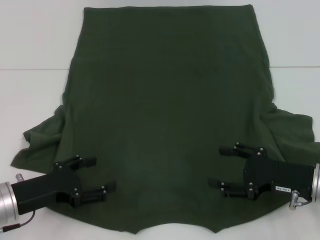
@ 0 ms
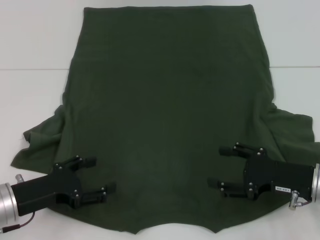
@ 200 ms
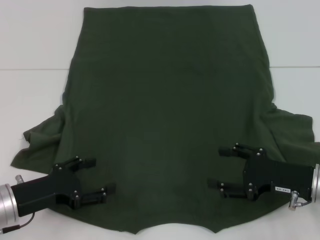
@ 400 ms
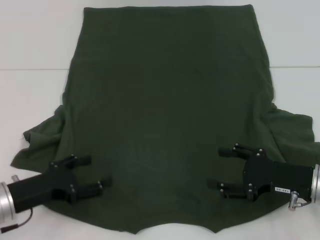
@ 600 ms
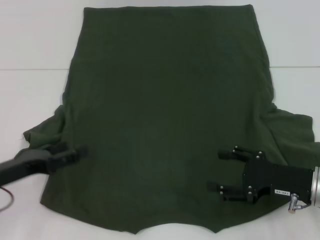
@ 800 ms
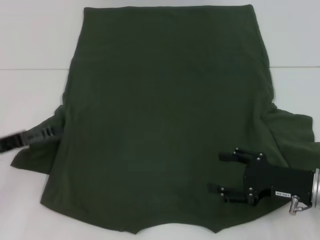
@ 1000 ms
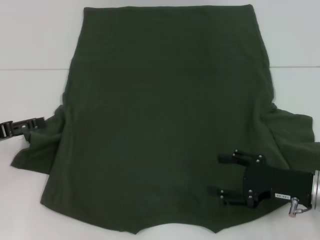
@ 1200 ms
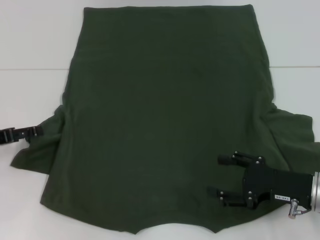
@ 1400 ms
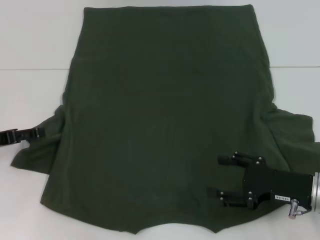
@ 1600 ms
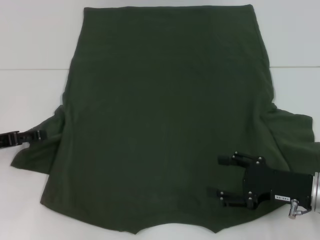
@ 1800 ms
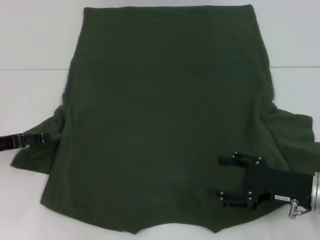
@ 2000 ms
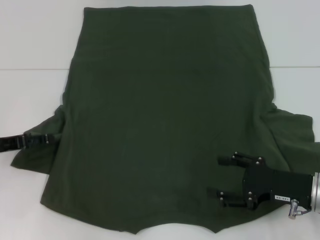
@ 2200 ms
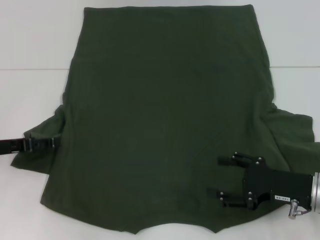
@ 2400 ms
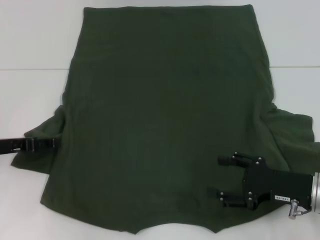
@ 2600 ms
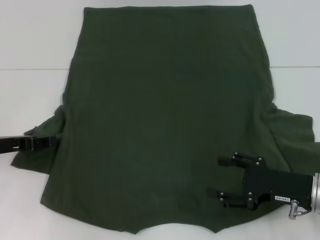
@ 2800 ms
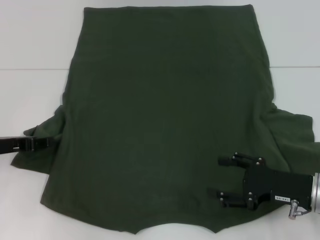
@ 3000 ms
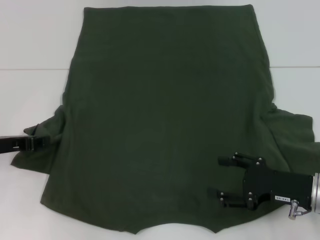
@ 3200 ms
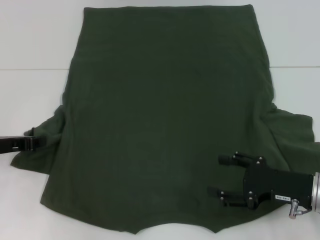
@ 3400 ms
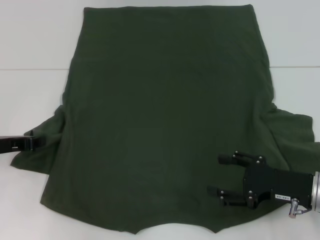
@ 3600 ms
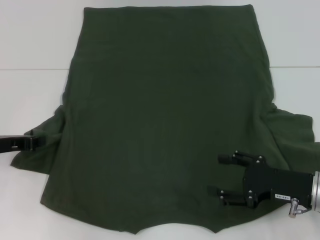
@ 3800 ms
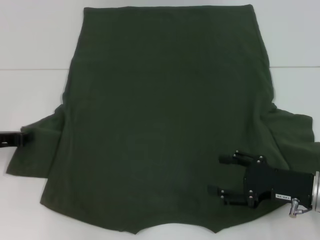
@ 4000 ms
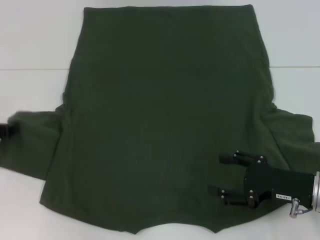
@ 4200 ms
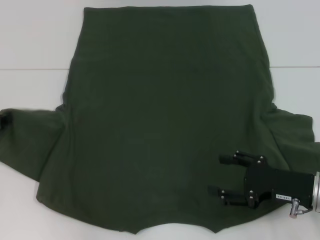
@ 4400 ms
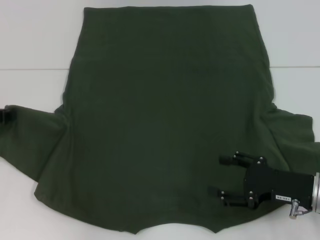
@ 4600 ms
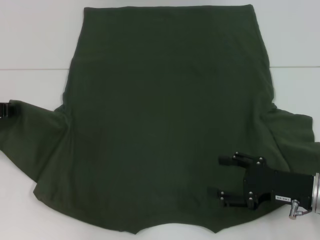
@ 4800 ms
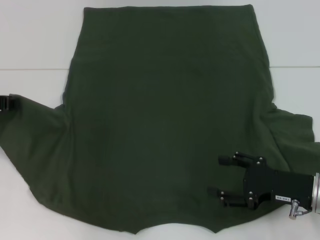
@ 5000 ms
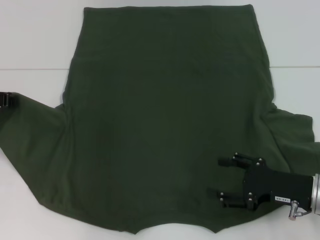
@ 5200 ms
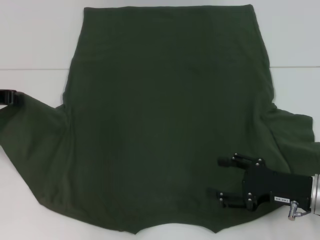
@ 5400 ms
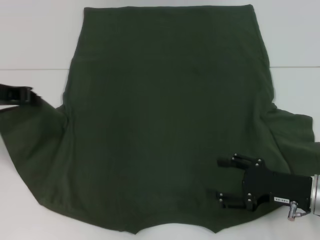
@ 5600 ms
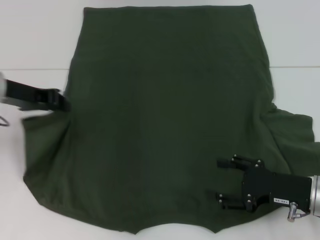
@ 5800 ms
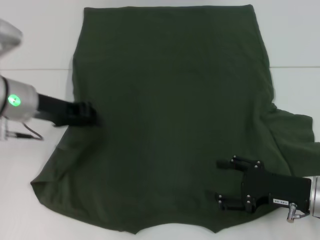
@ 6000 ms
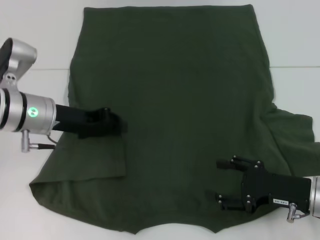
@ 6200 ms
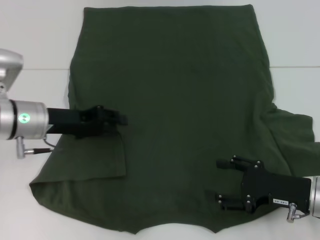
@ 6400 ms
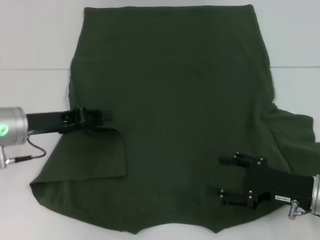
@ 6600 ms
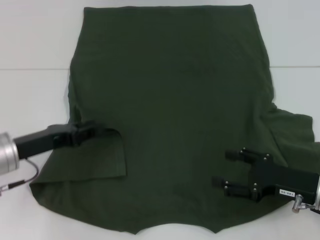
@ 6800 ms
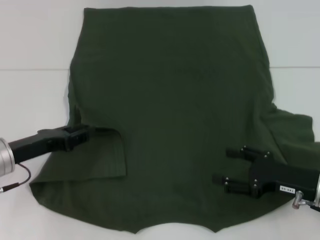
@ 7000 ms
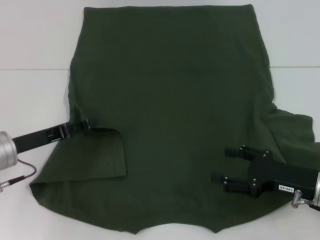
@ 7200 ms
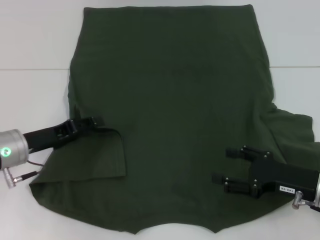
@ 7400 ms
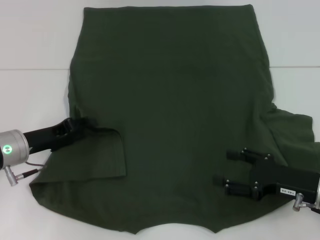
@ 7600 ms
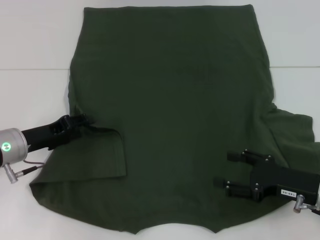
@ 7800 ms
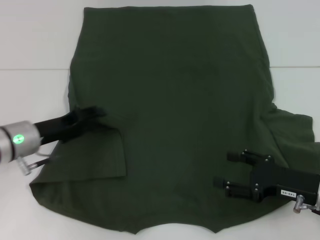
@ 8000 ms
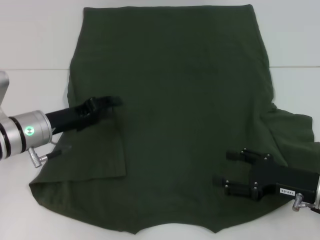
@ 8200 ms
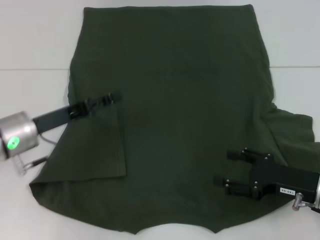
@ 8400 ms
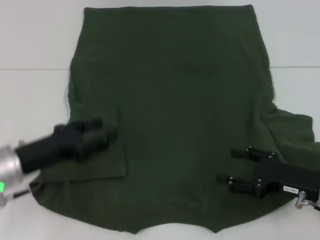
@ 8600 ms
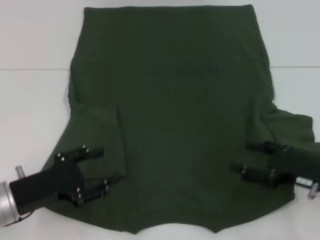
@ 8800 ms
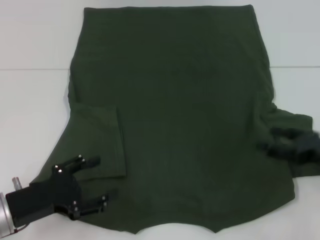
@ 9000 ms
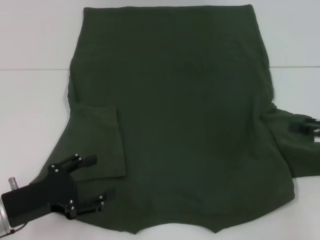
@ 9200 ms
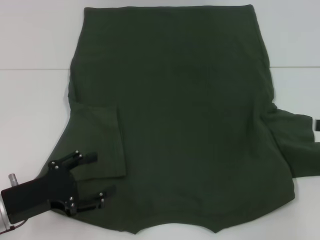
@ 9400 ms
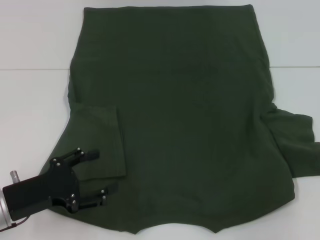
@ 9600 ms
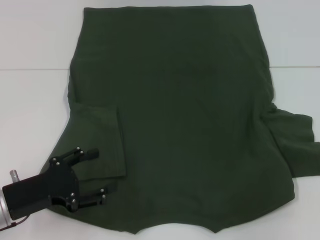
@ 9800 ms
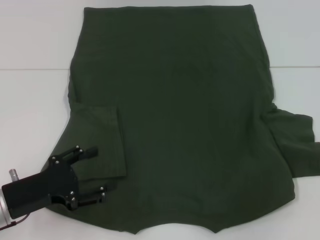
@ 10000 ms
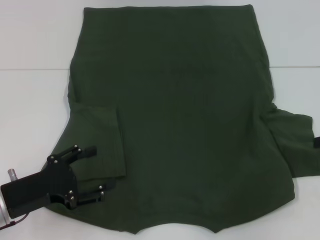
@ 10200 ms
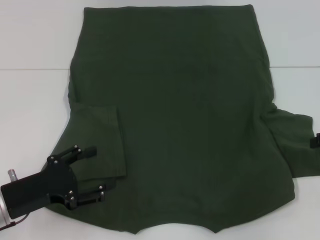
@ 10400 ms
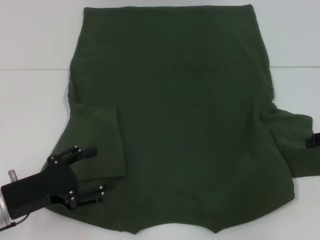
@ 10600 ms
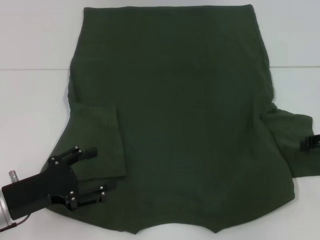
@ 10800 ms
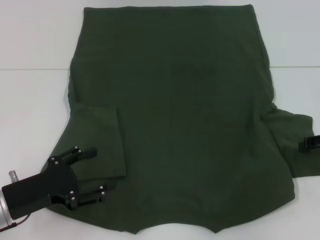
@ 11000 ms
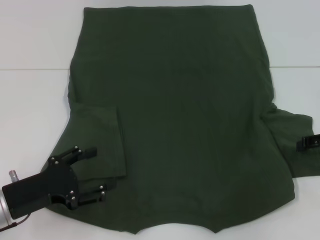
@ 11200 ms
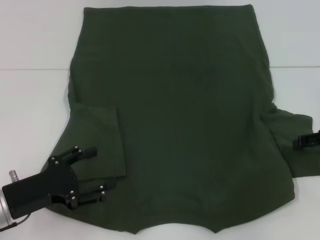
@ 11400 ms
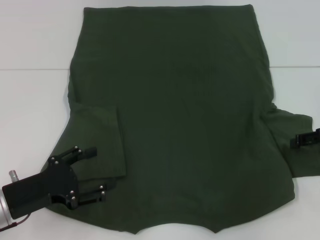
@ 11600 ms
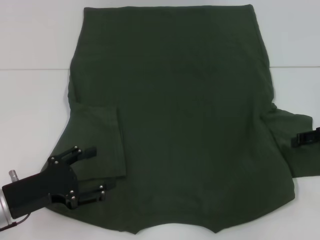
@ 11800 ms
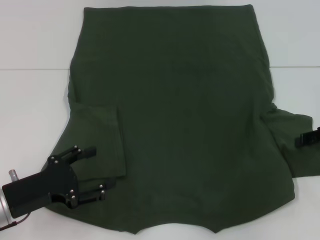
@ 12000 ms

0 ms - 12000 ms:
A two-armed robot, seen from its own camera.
Step, 0 ms - 8200 ms: Fold the bottom left sleeve with your left hand.
0 ms - 1600 ms: The left gripper shifts about 10 cm to the left and forward.
1600 ms - 3000 ms: There are only small adjustments of the grippers.
3000 ms - 4400 ms: The left gripper ends up approximately 5 cm from where it was, and closes up.
4400 ms - 6000 ms: The left gripper is displaced to the right by roughly 10 cm.
6000 ms - 7600 ms: The left gripper moves downward, about 10 cm, and opens up.
7600 ms - 9000 ms: The right gripper is displaced to the right by some 5 cm, while the left gripper heads backward, covering some 10 cm.
9000 ms - 10400 ms: The right gripper moves forward, upward and to the right, roughly 10 cm.

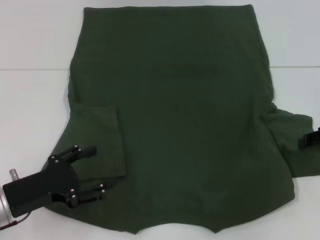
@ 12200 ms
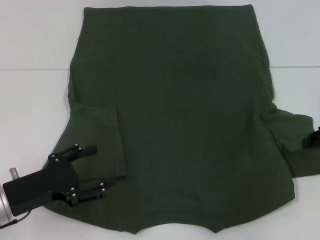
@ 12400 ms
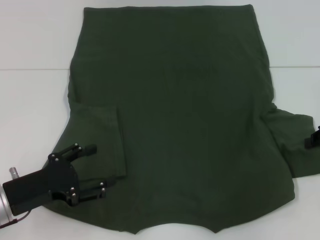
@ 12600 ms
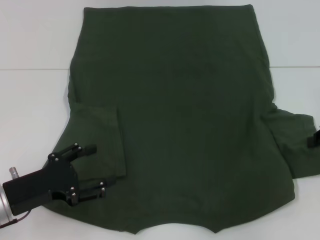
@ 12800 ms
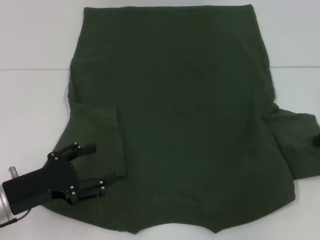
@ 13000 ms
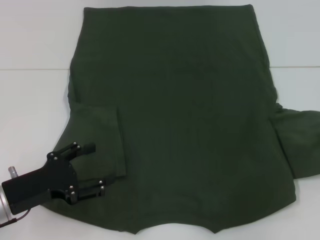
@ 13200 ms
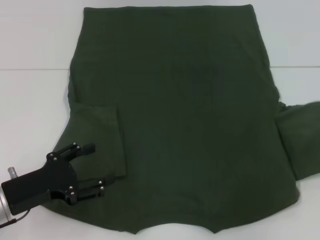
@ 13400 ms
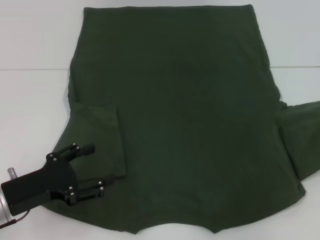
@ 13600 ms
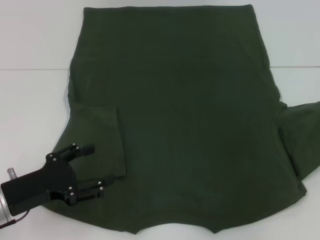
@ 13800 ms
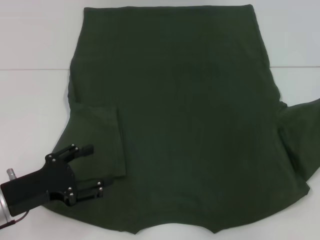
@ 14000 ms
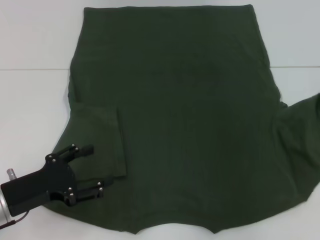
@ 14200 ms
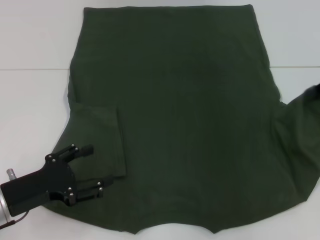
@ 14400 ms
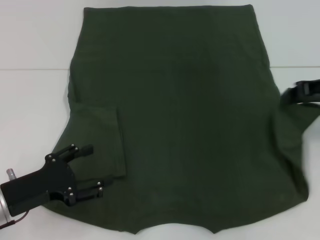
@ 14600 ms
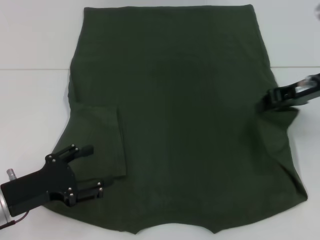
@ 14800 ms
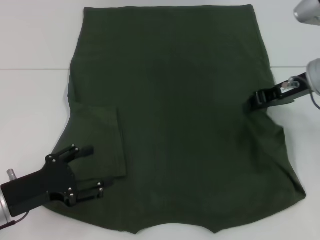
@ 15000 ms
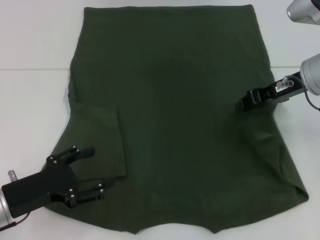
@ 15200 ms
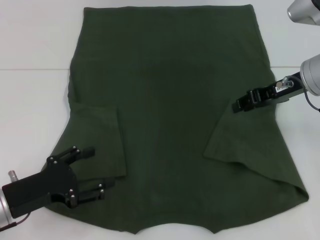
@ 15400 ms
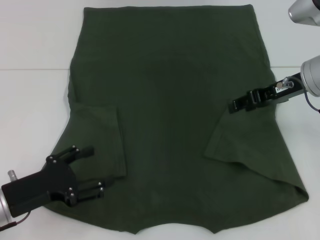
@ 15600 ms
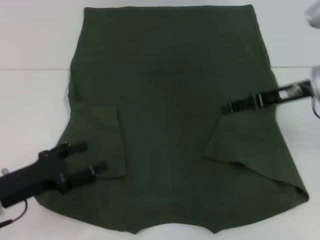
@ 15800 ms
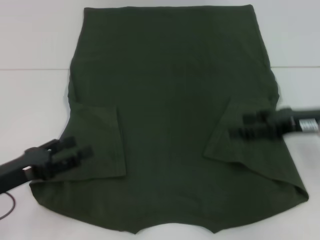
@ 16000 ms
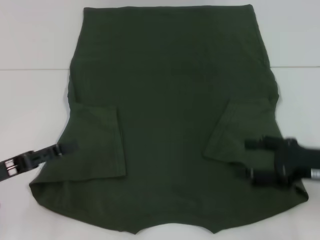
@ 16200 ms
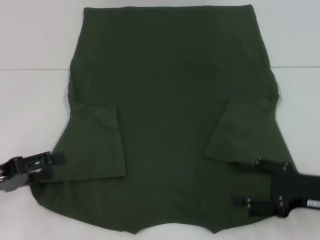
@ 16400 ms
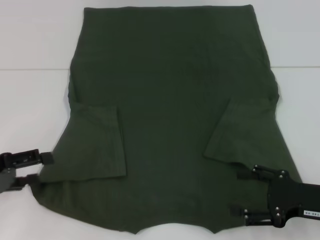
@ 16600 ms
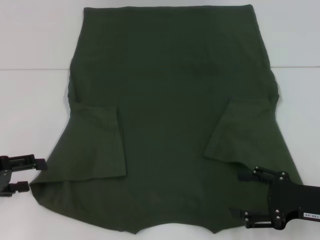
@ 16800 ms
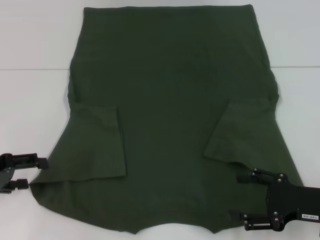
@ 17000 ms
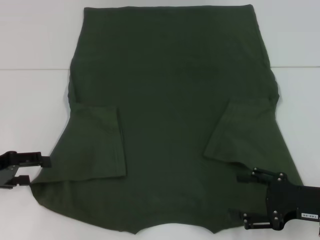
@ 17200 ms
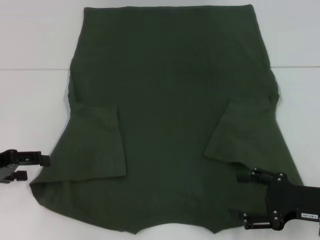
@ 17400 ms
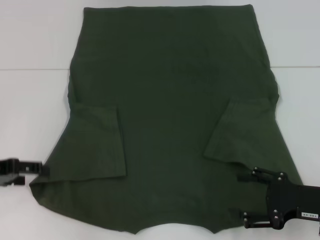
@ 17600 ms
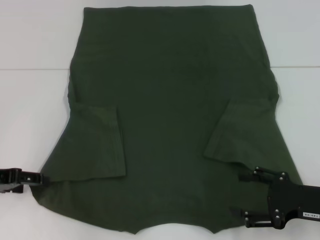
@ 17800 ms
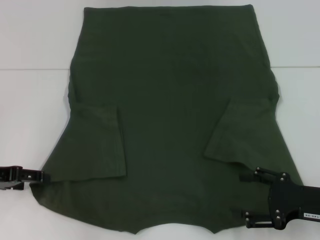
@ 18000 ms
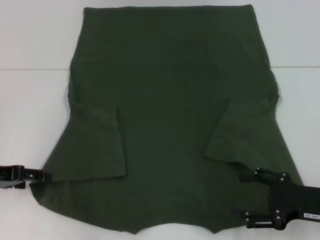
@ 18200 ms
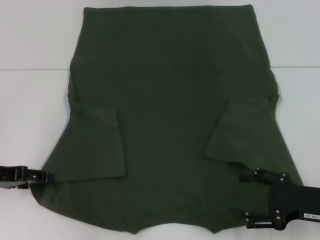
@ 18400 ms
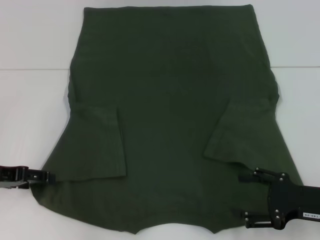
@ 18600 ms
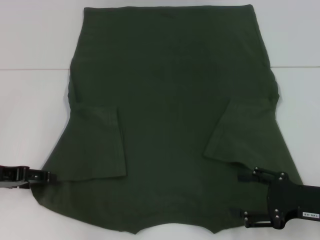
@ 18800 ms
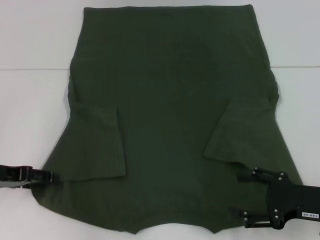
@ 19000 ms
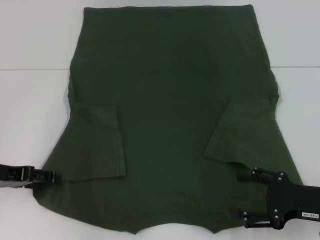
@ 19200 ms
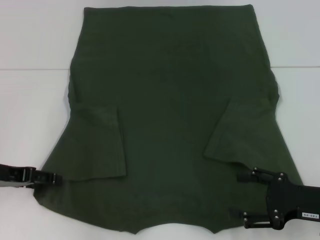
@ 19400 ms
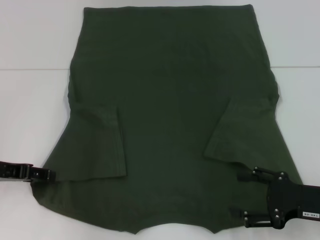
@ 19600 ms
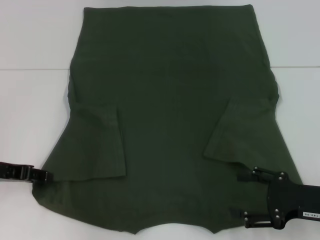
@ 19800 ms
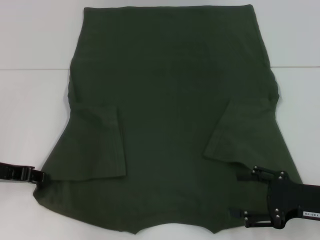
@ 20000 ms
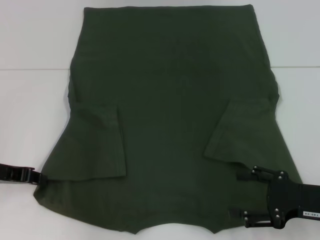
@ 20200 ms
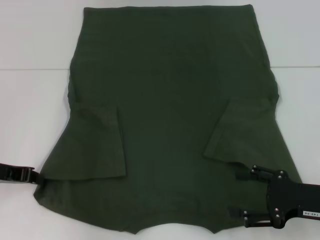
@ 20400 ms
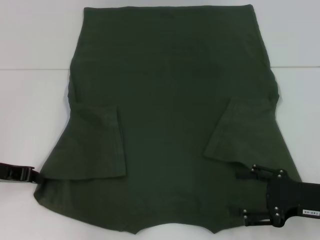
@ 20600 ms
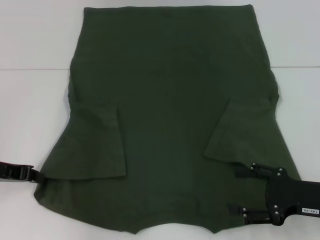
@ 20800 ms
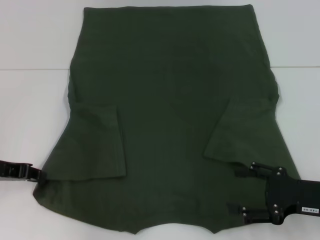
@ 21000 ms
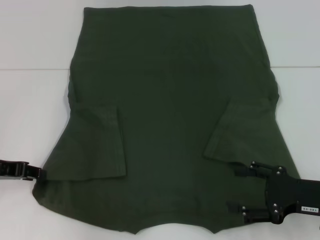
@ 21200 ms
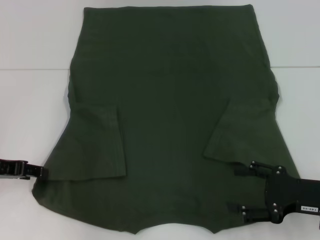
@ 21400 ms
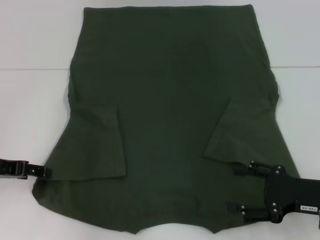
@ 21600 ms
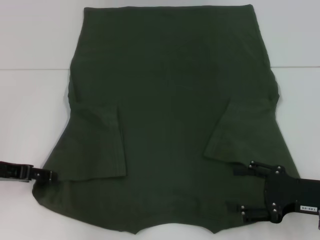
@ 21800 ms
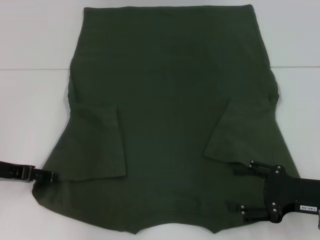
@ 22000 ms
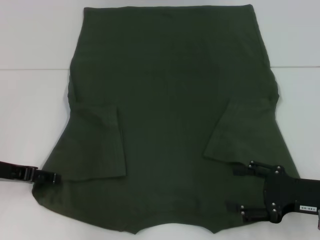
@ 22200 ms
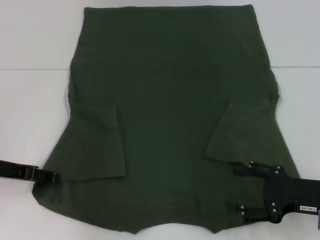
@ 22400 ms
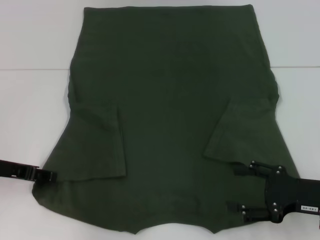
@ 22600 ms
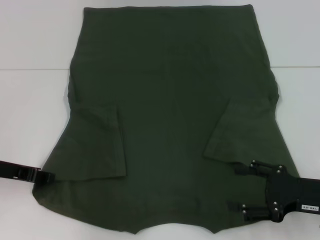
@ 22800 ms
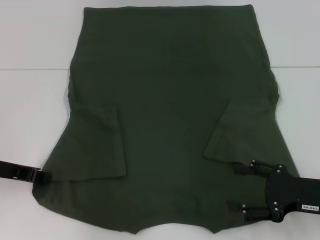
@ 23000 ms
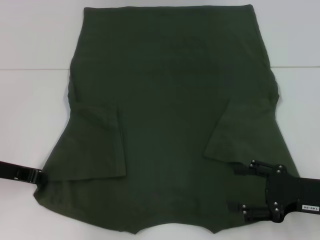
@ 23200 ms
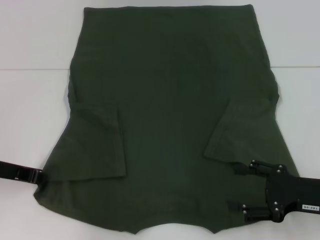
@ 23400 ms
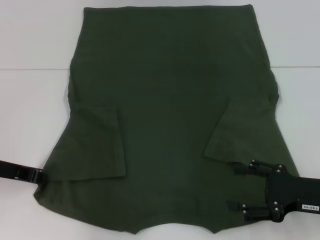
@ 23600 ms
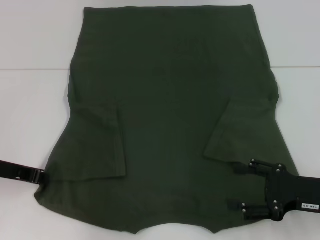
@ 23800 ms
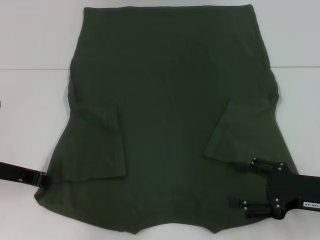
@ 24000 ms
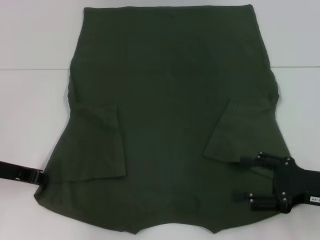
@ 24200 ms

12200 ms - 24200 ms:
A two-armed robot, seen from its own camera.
Step, 12200 ms - 15200 ms: Fold the bottom right sleeve with your right hand.
Step, 15400 ms - 23400 ms: Grab the bottom left corner with your left hand.
12200 ms - 13800 ms: The right gripper heads upward, covering about 5 cm, and closes up.
13800 ms - 15200 ms: The right gripper travels to the left by roughly 15 cm.
15200 ms - 16600 ms: The left gripper heads to the left and upward, covering roughly 10 cm, while the right gripper goes some 20 cm backward and downward, and opens its fingers.
18200 ms - 19800 ms: The grippers move only a little.
22600 ms - 24200 ms: The left gripper closes its fingers.
